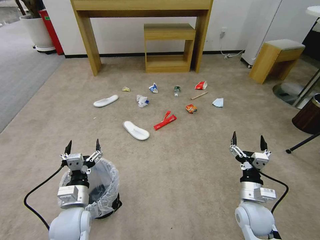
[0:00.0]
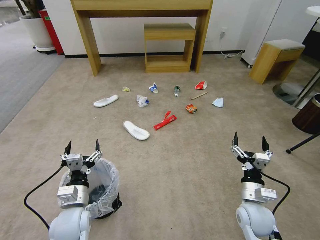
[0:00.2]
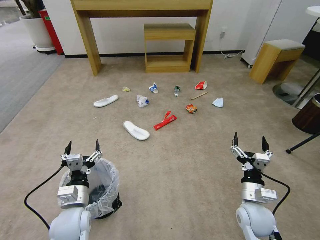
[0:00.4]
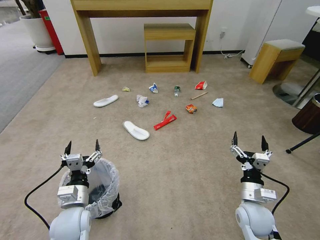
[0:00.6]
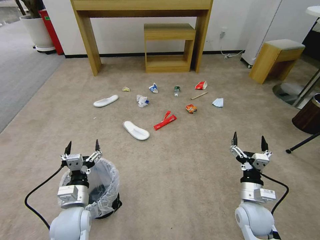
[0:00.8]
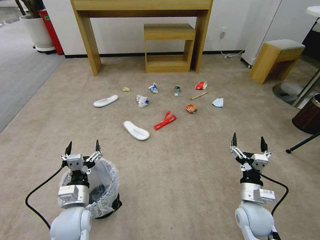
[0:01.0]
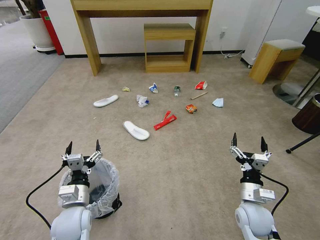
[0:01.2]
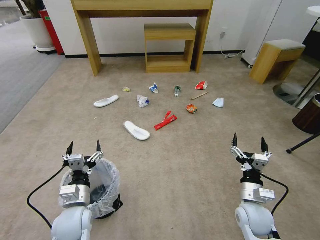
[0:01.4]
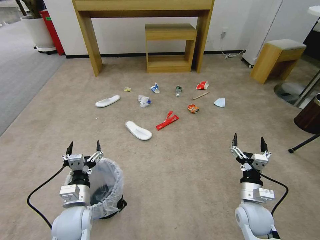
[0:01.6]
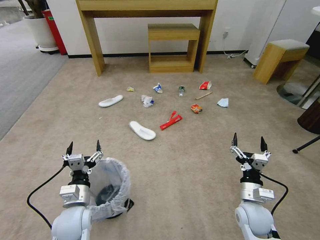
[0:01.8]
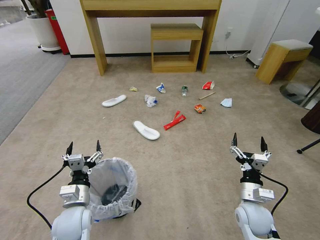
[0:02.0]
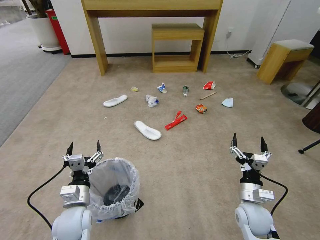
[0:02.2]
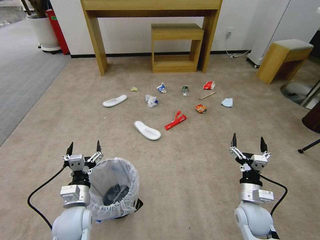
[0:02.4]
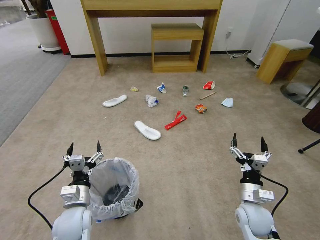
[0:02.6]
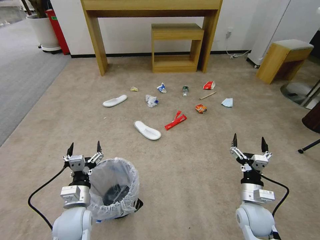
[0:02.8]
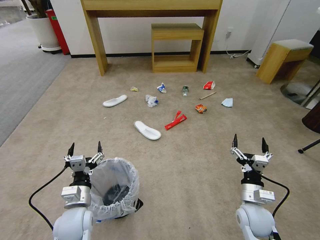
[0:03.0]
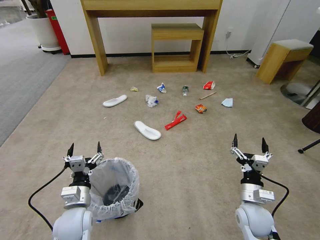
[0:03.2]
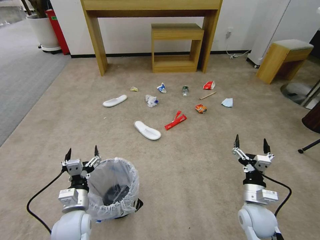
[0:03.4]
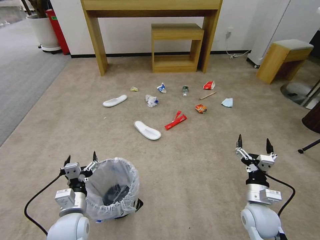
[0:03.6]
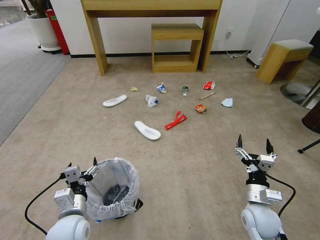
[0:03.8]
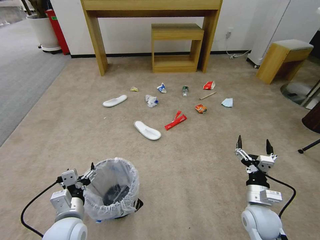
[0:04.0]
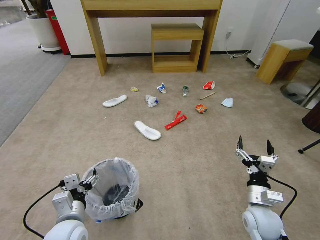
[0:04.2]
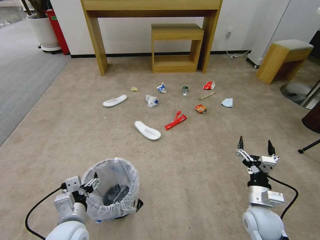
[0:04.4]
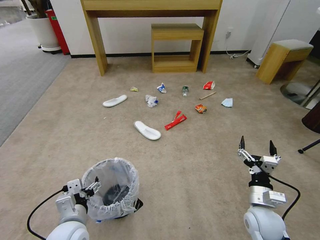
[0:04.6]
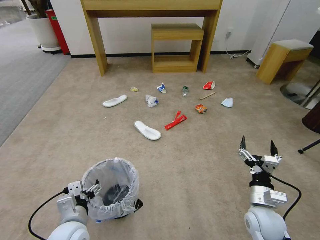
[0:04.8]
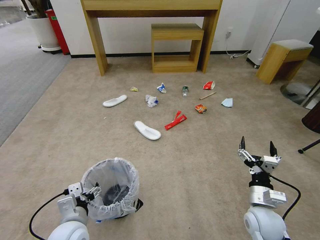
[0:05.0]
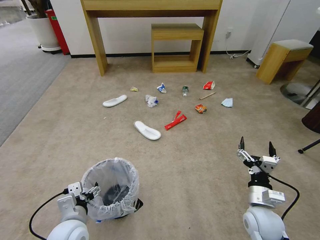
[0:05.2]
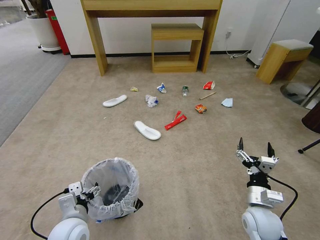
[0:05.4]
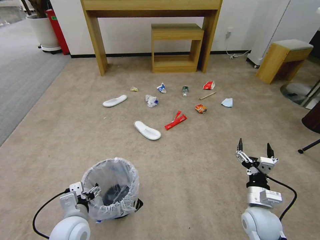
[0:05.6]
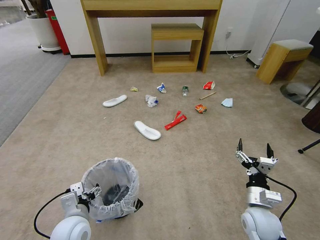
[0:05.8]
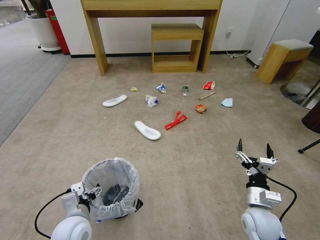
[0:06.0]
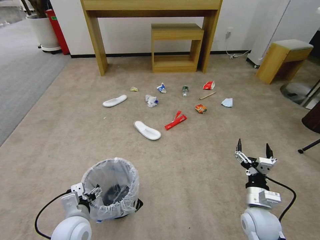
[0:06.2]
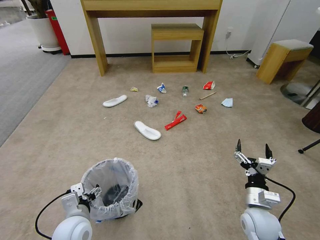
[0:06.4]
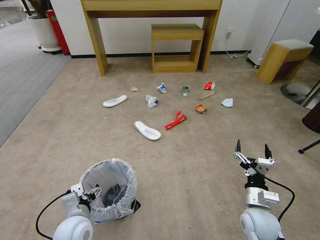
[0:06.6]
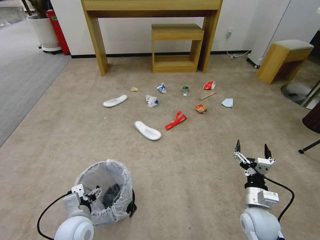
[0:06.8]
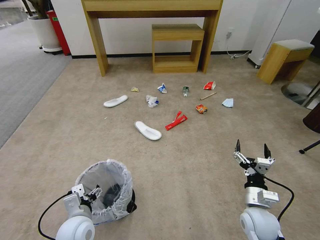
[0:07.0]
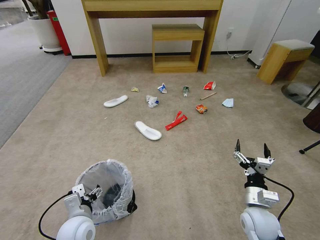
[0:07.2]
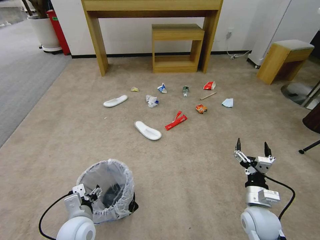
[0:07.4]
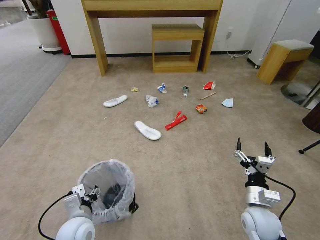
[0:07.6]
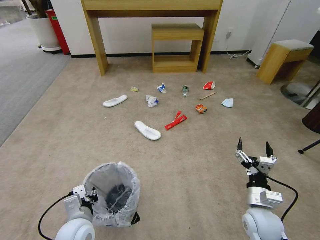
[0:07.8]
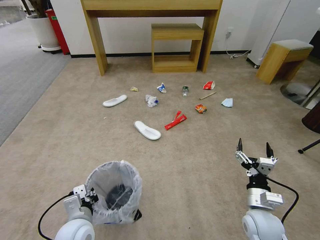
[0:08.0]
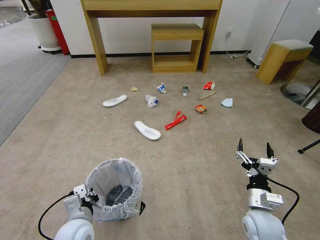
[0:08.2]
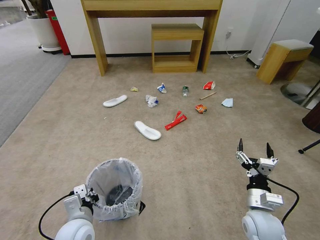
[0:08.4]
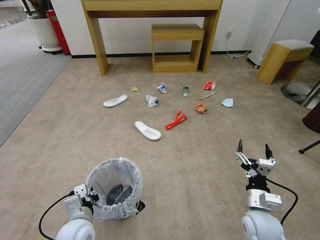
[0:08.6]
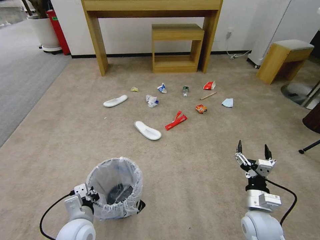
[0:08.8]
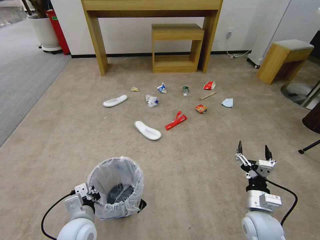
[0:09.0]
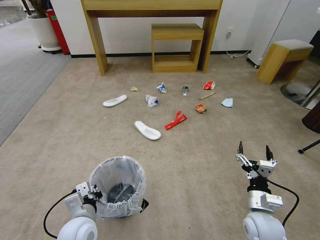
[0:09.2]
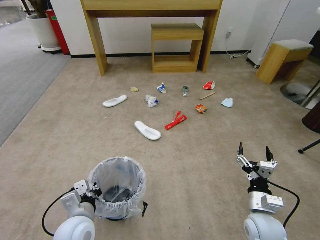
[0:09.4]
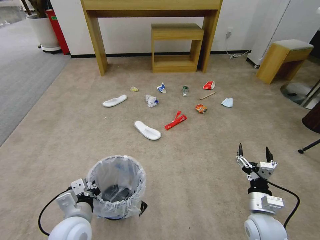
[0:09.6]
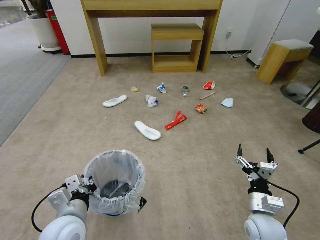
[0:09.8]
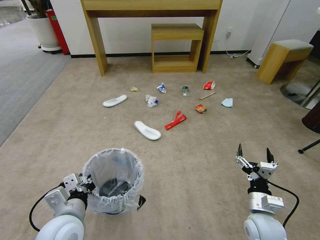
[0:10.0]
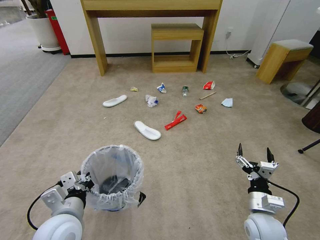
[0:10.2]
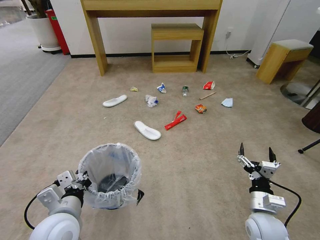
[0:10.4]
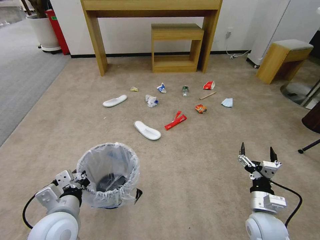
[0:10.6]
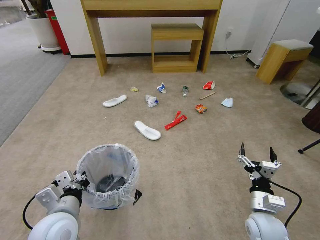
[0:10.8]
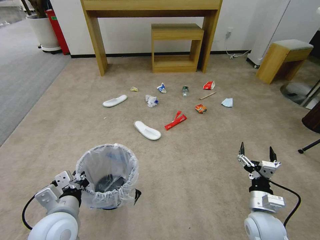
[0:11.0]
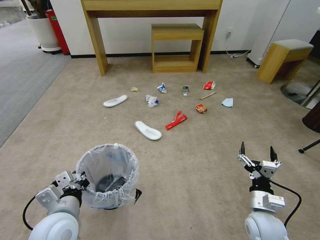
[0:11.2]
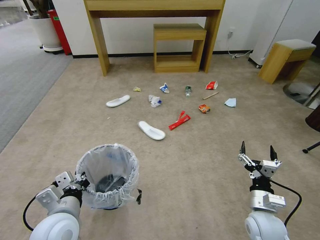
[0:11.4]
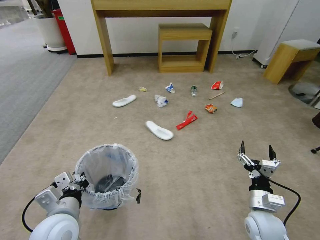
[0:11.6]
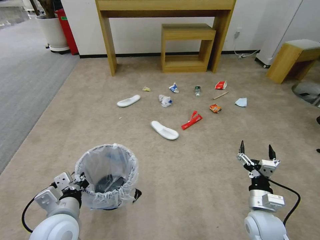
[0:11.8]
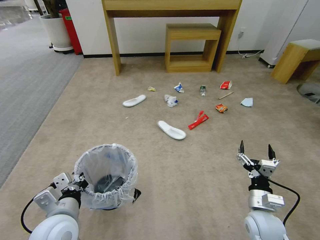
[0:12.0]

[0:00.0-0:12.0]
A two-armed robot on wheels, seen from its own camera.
Task of the whole recording: Pick up the trash bin and place the garbage on the floor into it.
0:01.6 to 0:03.0: Both grippers stay about where they are.
0:03.0 to 0:04.4: The left gripper moves roughly 5 cm.
0:04.4 to 0:07.6: There are only small adjustments of the grippers.
0:07.6 to 0:09.0: The left gripper closes up.
0:09.0 to 0:10.4: The left gripper goes roughly 10 cm upward.

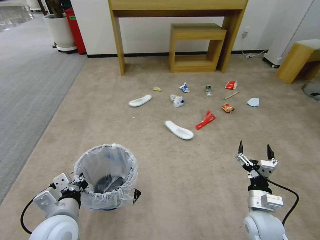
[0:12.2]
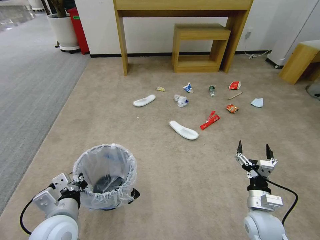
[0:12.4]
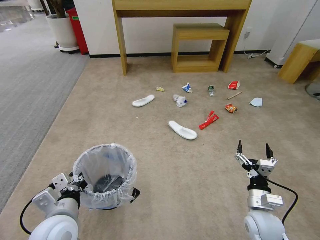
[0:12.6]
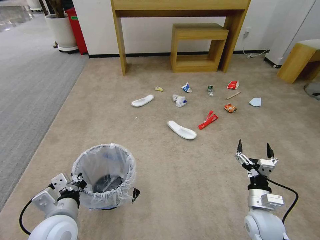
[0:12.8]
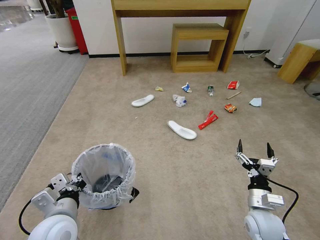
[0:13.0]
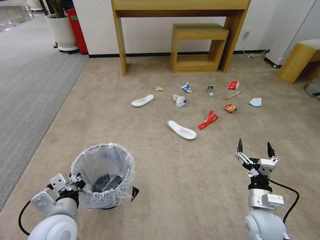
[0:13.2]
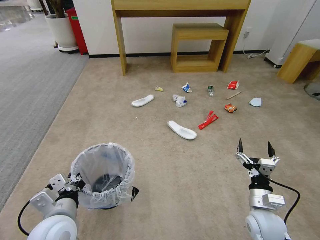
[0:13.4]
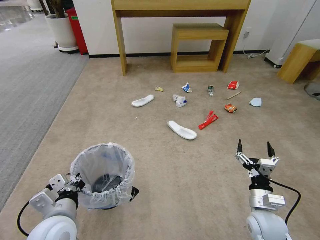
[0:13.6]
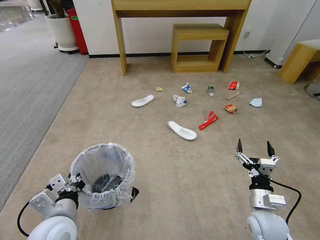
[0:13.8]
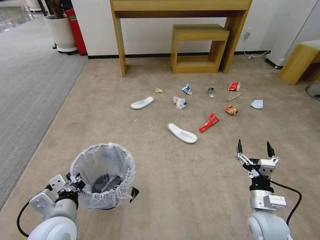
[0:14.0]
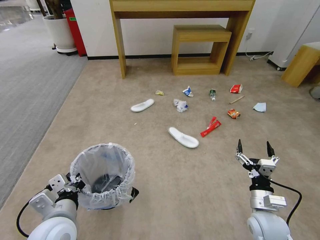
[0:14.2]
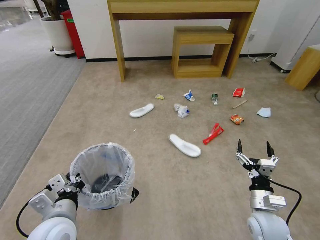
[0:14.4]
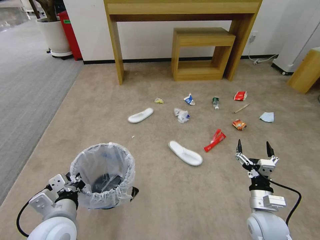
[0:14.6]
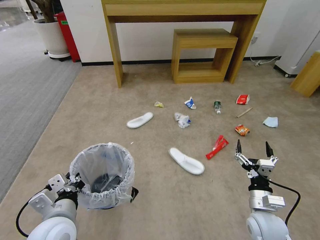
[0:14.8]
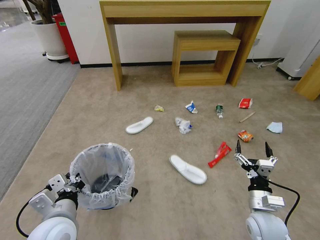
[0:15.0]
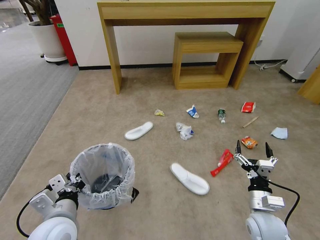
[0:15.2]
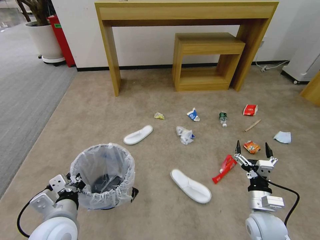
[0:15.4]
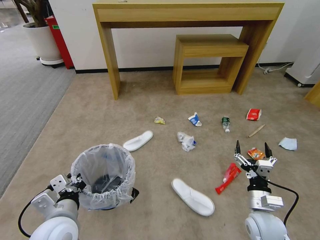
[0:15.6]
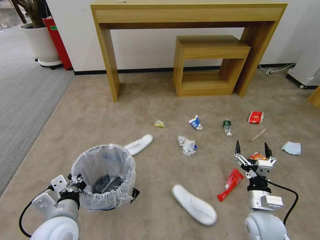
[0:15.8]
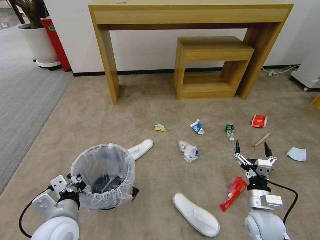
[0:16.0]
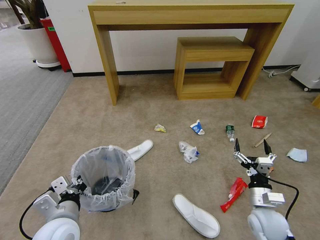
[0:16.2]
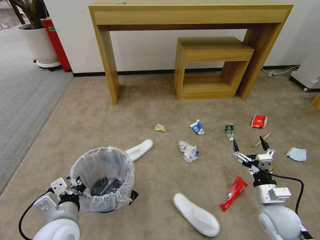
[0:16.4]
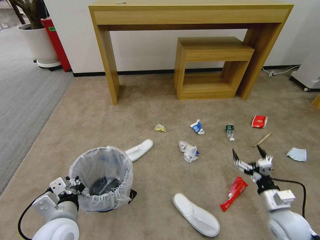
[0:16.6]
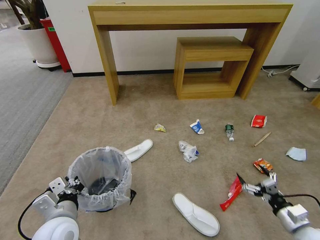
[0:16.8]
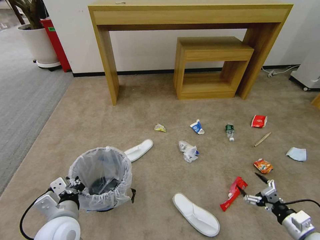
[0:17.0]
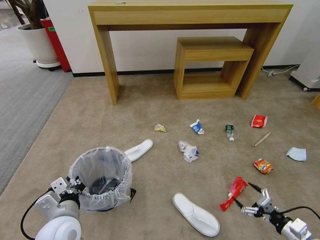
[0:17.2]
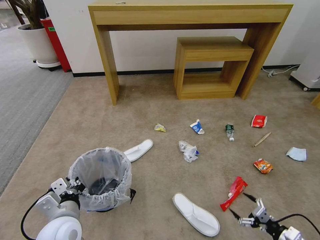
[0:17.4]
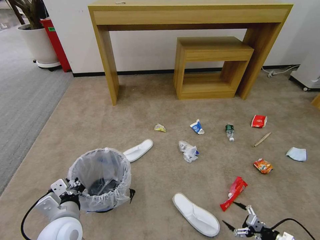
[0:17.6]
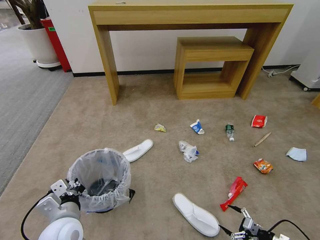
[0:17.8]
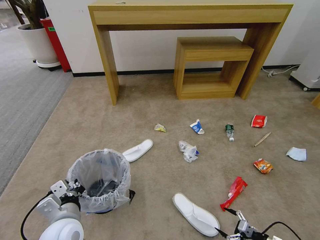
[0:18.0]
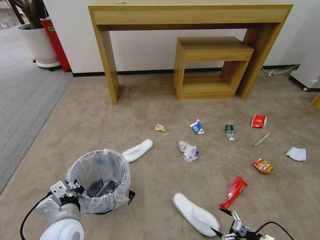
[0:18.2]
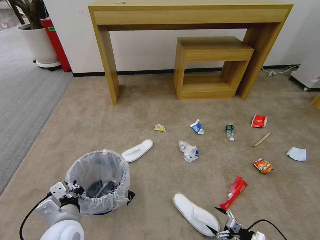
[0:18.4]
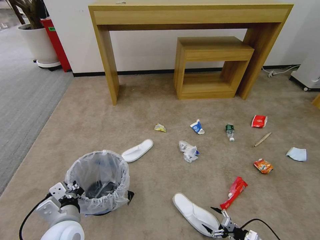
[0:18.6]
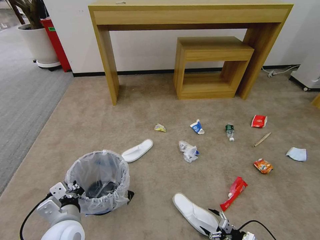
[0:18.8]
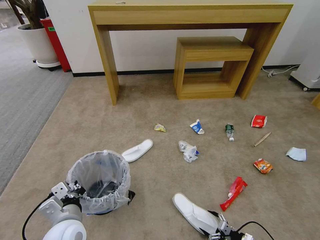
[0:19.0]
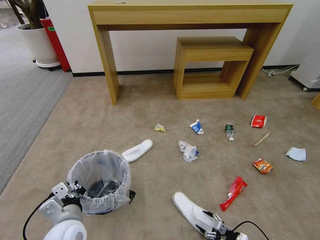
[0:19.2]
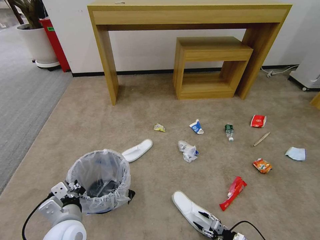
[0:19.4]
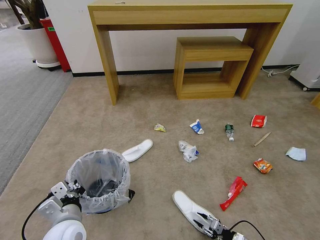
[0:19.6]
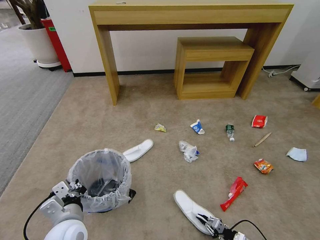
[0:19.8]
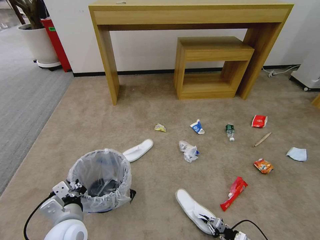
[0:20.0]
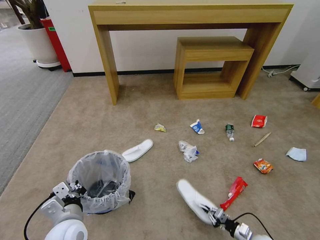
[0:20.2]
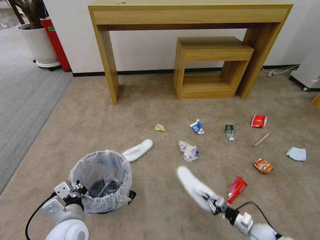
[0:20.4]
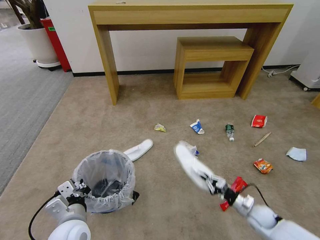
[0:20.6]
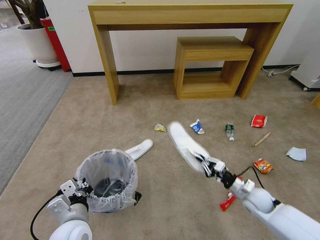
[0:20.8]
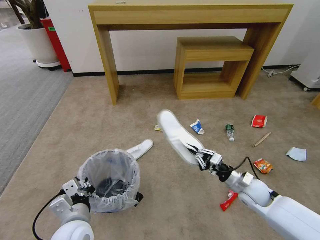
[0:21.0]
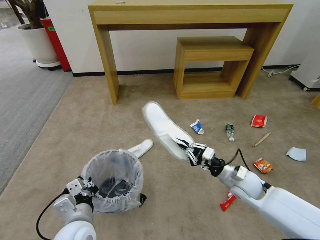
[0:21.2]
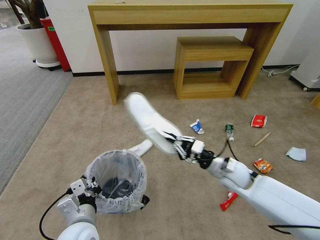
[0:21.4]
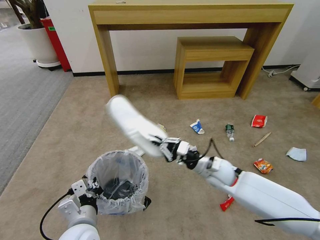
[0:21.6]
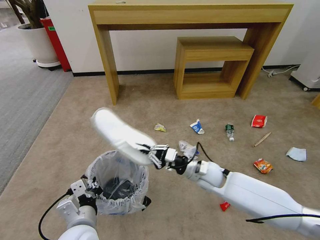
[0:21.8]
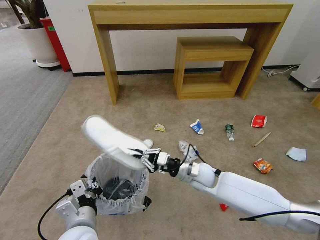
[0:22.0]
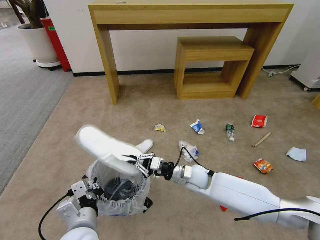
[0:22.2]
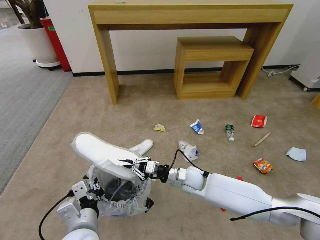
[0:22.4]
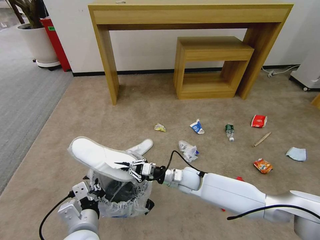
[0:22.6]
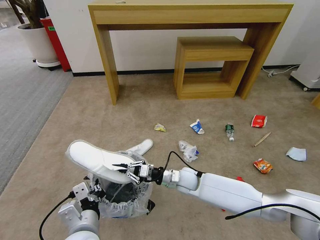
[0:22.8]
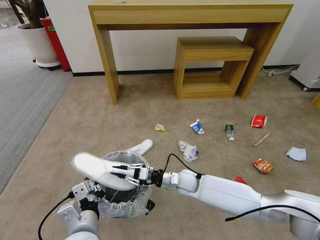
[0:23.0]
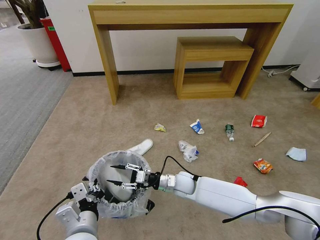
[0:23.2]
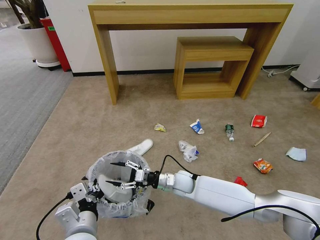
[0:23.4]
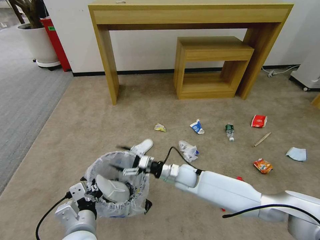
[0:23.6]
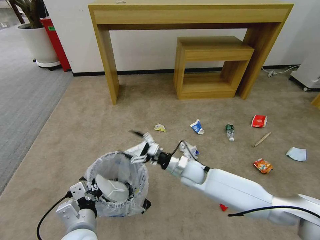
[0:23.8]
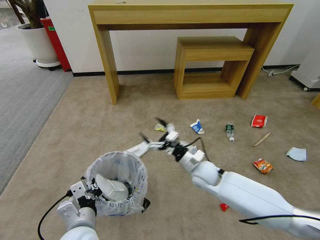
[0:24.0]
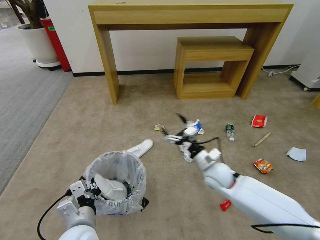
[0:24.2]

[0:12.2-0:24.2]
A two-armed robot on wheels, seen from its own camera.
Task of the whole recording: Pick up the trash bin and place the garbage on the floor into it.
0:12.2 to 0:13.8: The two grippers keep their place.
0:15.2 to 0:16.6: The right gripper travels to the right by about 10 cm.
0:16.6 to 0:18.2: The right gripper moves downward, backward and to the right, roughly 20 cm.
0:18.2 to 0:19.8: The right gripper heads downward and to the left, covering some 10 cm, and closes its fingers.
0:19.8 to 0:21.2: The right gripper goes about 35 cm upward, forward and to the left.
0:21.2 to 0:22.6: The right gripper is displaced to the left by some 15 cm.
0:22.6 to 0:24.2: The right gripper moves to the right, approximately 10 cm, and opens its fingers.
